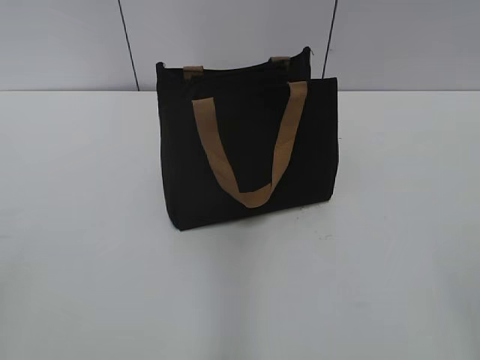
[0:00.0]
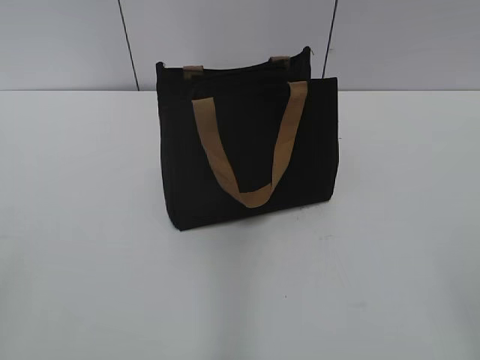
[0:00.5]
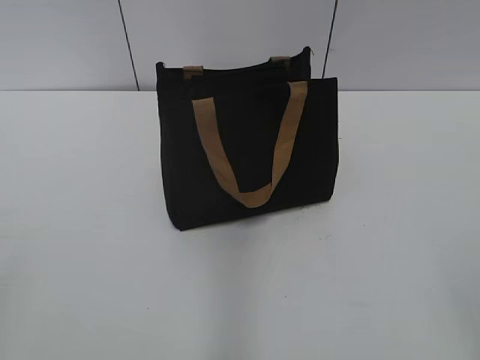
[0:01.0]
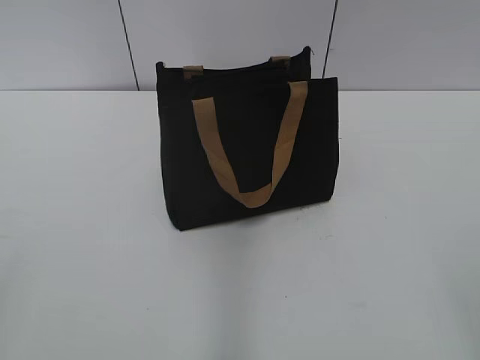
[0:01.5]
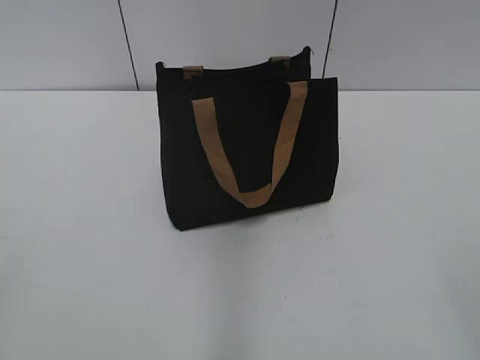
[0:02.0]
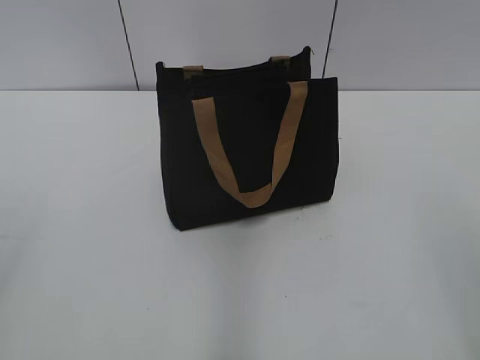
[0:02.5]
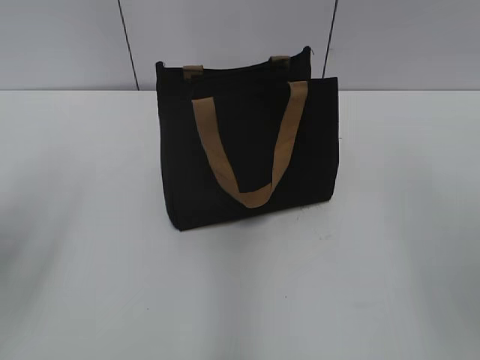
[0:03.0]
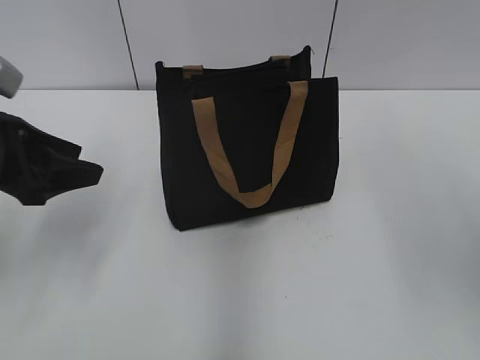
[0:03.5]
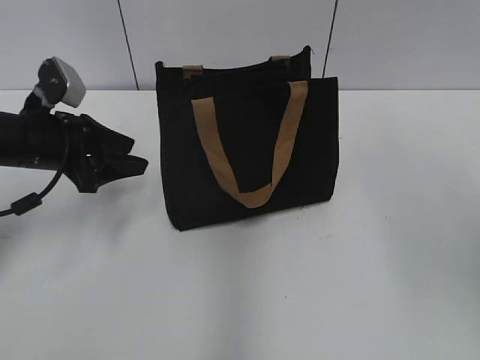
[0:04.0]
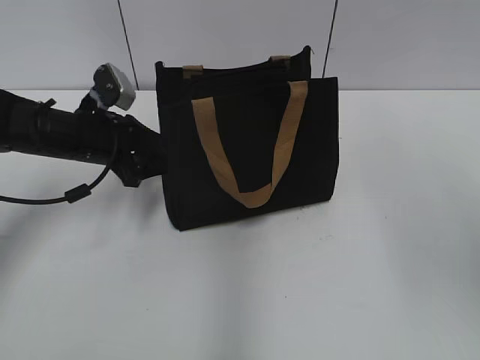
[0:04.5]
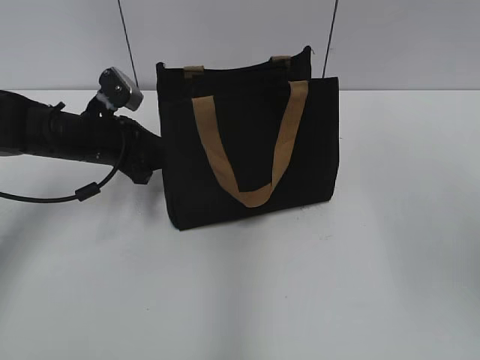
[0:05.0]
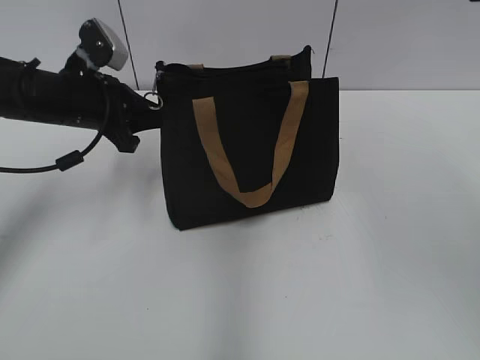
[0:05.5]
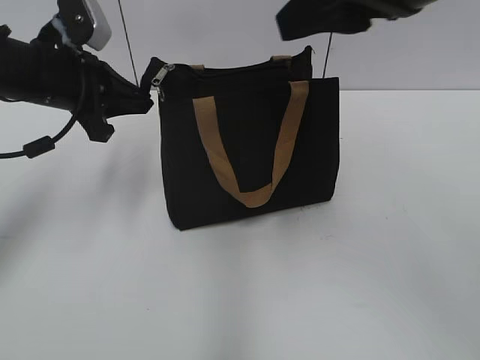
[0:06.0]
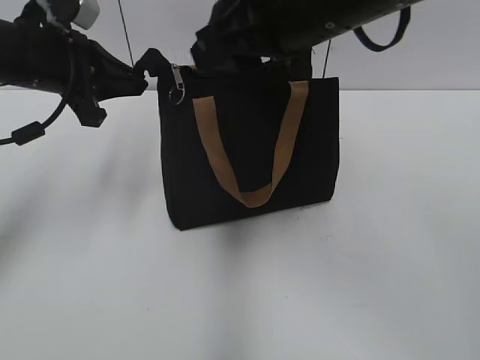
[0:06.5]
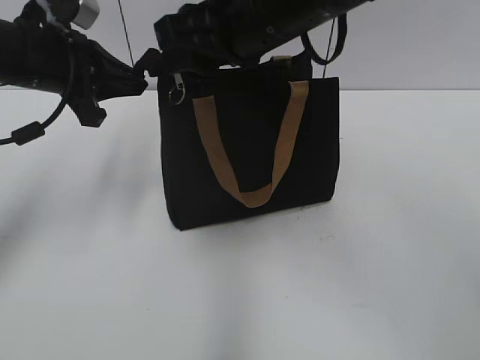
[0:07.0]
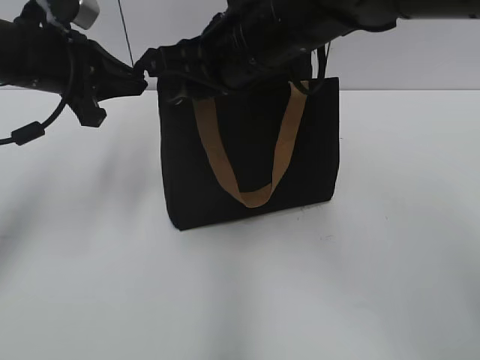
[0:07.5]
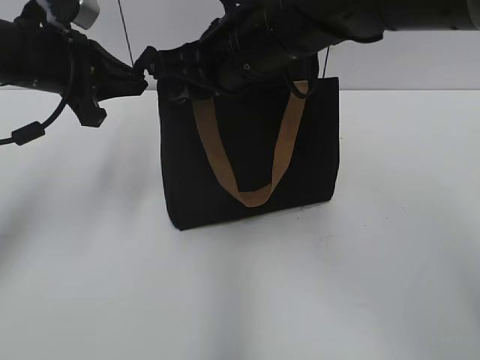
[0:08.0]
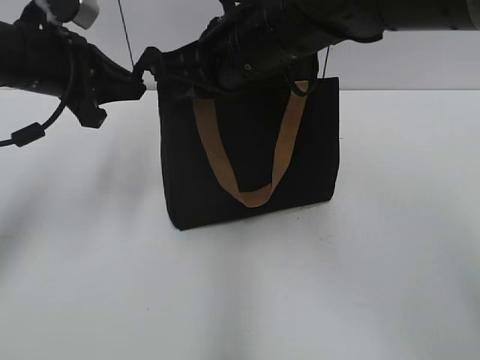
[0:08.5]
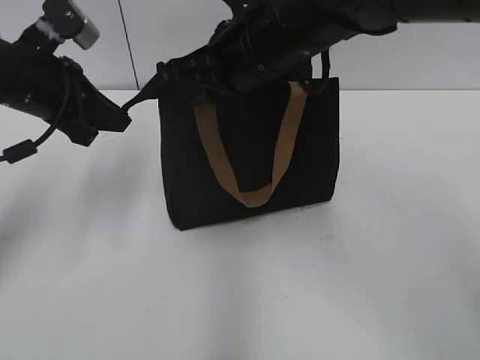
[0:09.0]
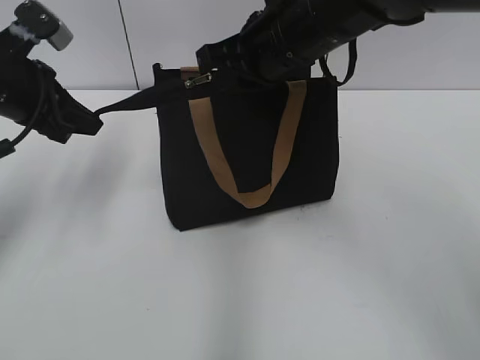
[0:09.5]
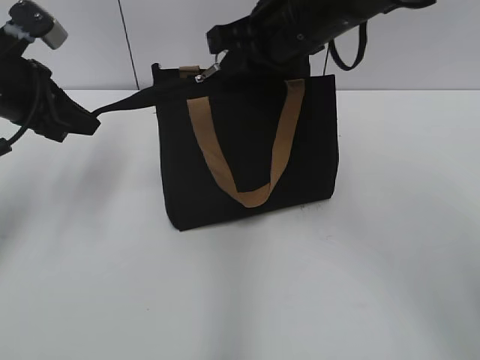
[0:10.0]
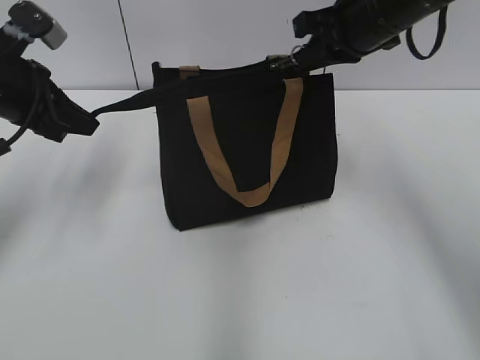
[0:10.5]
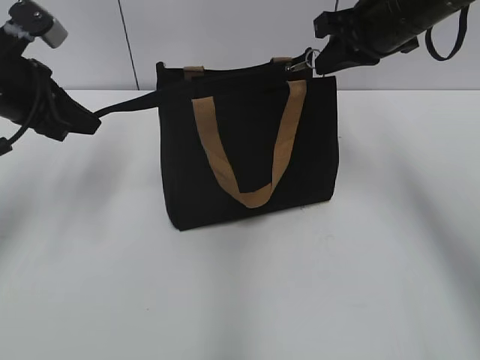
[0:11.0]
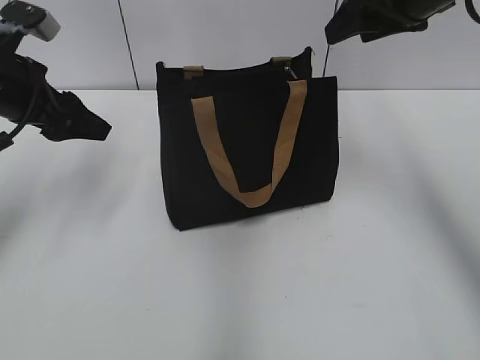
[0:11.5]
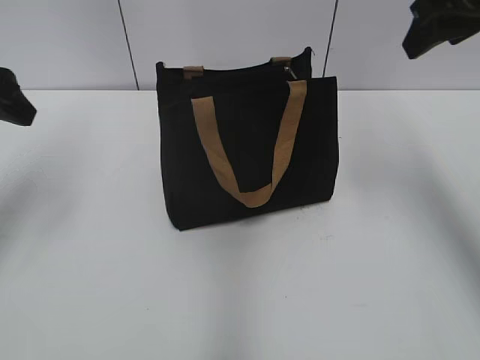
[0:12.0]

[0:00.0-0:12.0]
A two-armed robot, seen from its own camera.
Step, 0:00.0 to 0:11.0: Zip up the bag with your right hand.
0:02.0 to 0:04.0: The left gripper shifts roughly 35 cm forward.
0:04.0 to 0:06.0: The left gripper moves upward, about 5 cm, and closes up. The right gripper moves to the left and forward, about 15 cm.
0:06.0 to 0:08.0: The right gripper goes some 20 cm to the left, downward and forward.
0:08.0 to 0:10.0: The right gripper changes place by about 5 cm, and closes.
0:10.0 to 0:12.0: The right gripper travels to the right and upward by approximately 15 cm, and opens its fingers. The left gripper ends up approximately 5 cm from where it was, and opens its fingers.

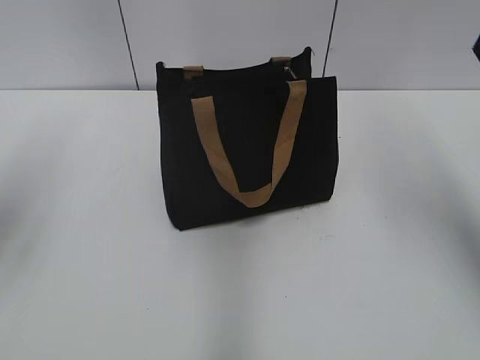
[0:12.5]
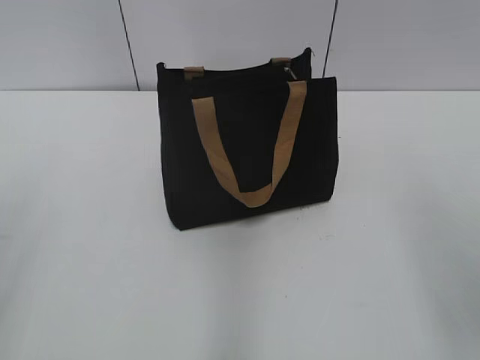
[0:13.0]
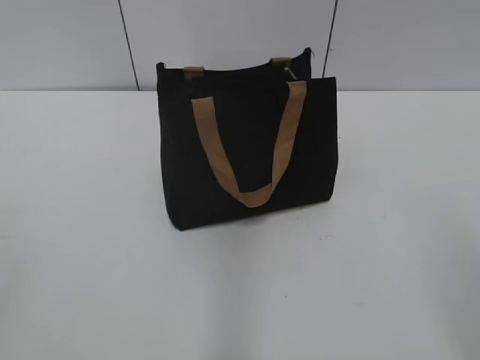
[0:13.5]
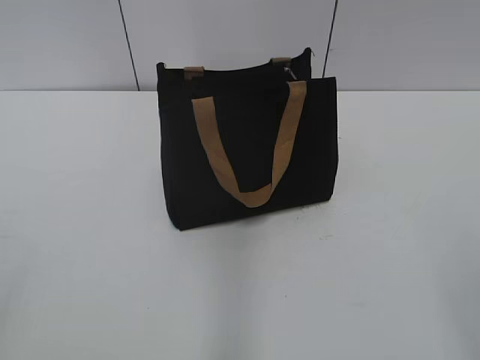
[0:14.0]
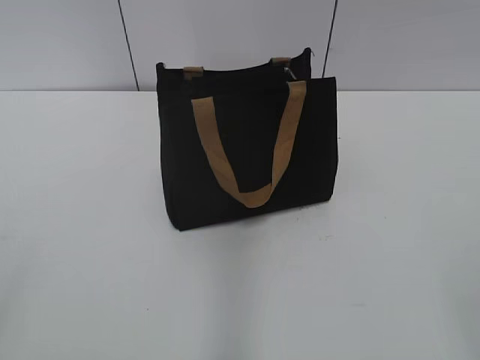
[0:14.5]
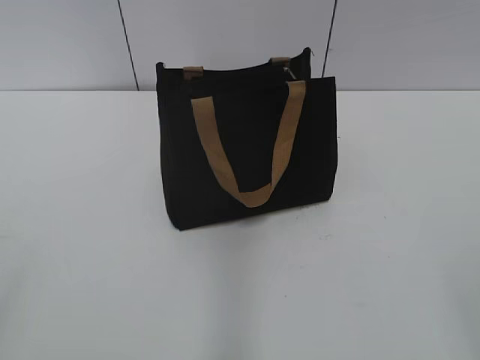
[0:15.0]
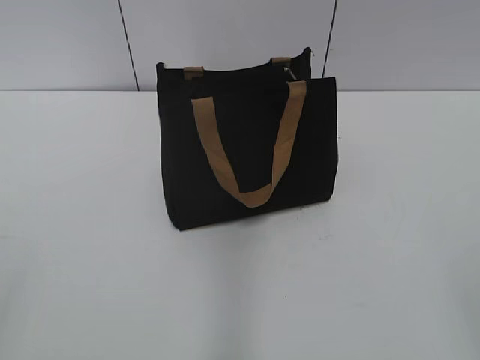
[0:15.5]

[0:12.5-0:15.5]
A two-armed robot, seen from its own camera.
0:12.5 to 0:14.0: The grippers both shift backward by some 25 cm.
